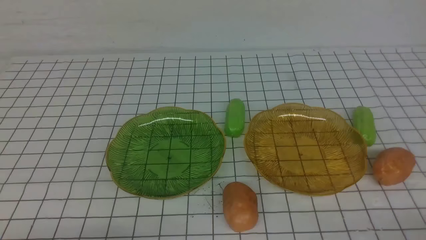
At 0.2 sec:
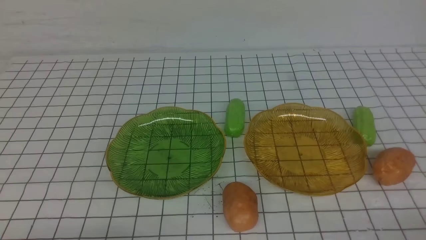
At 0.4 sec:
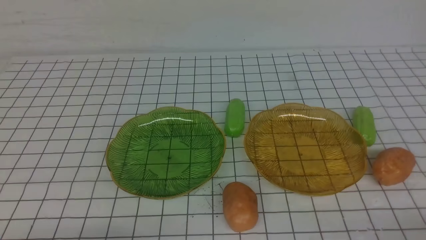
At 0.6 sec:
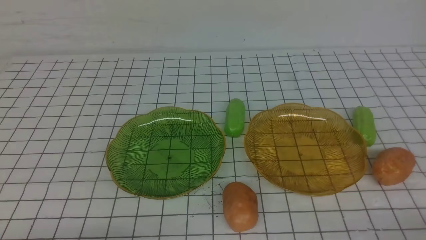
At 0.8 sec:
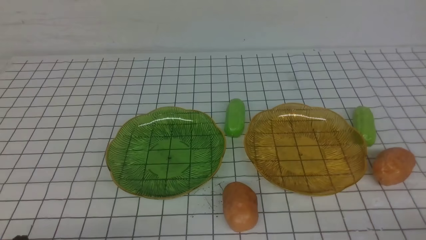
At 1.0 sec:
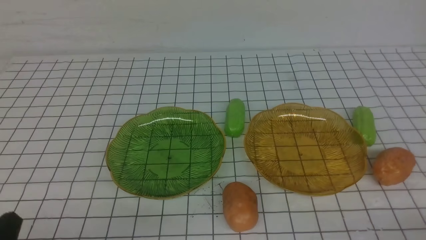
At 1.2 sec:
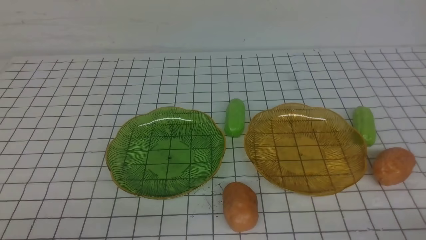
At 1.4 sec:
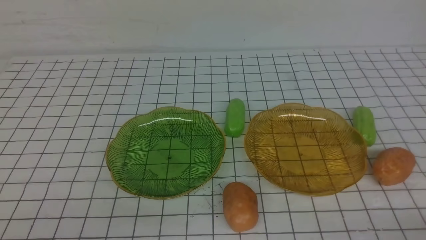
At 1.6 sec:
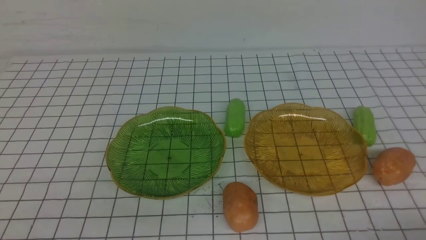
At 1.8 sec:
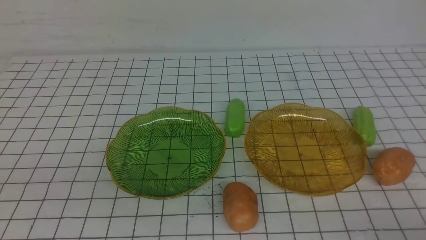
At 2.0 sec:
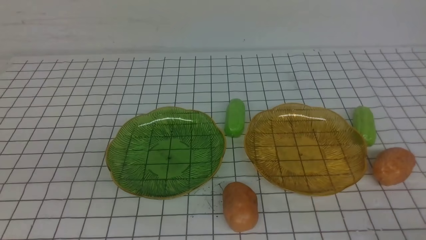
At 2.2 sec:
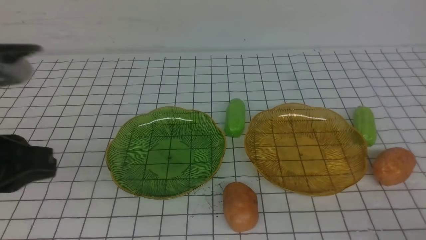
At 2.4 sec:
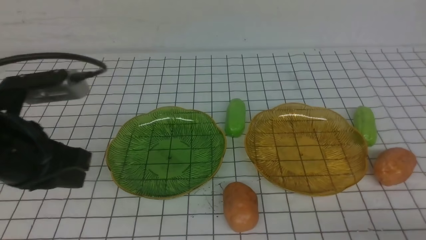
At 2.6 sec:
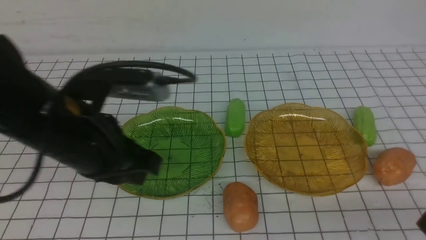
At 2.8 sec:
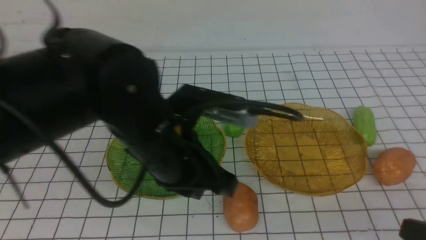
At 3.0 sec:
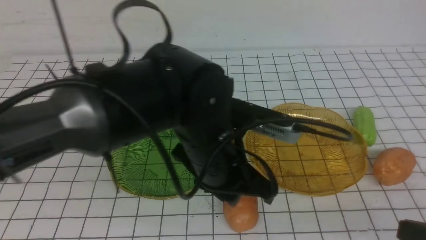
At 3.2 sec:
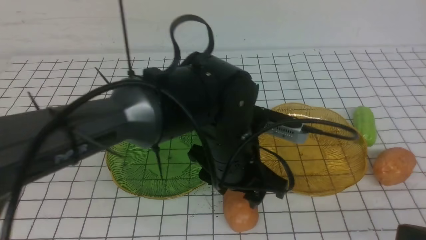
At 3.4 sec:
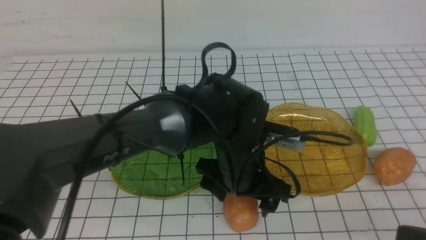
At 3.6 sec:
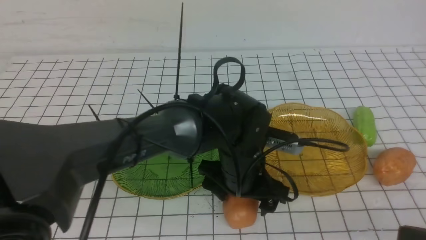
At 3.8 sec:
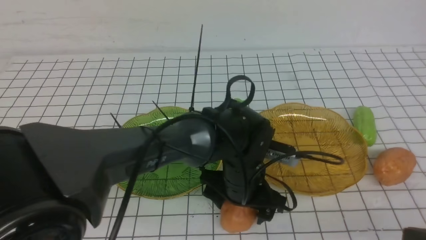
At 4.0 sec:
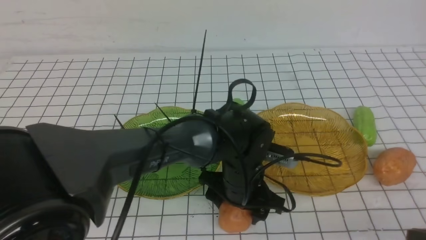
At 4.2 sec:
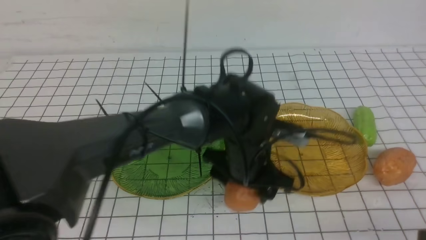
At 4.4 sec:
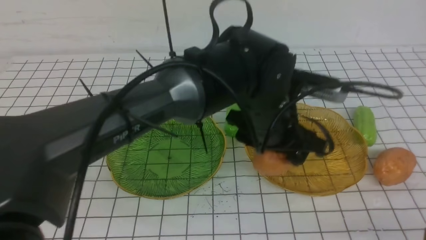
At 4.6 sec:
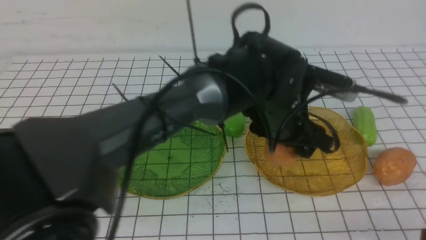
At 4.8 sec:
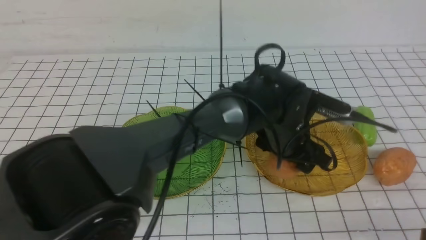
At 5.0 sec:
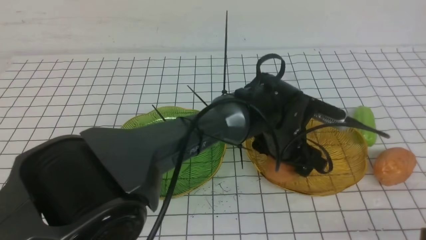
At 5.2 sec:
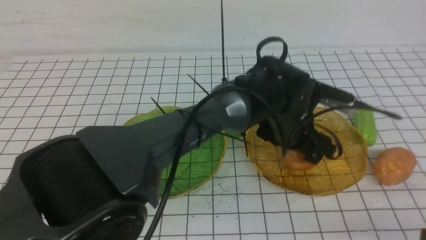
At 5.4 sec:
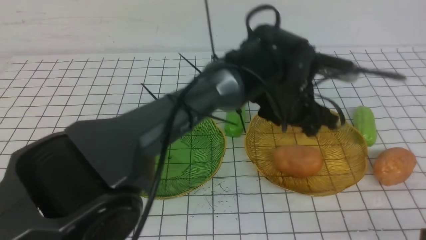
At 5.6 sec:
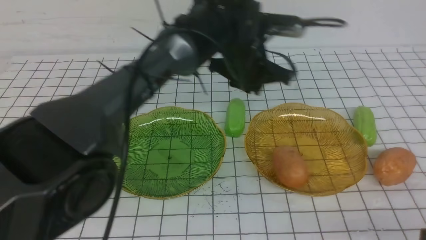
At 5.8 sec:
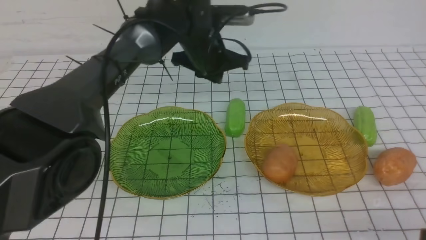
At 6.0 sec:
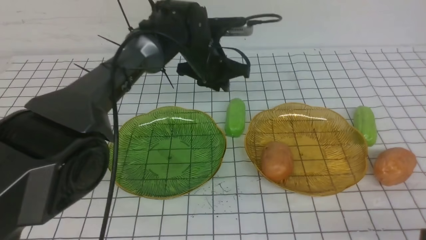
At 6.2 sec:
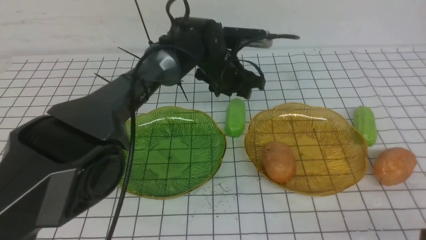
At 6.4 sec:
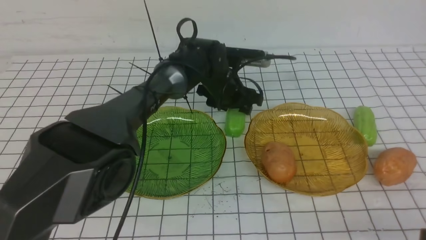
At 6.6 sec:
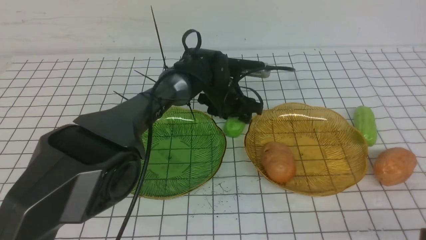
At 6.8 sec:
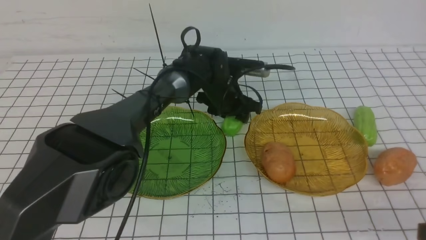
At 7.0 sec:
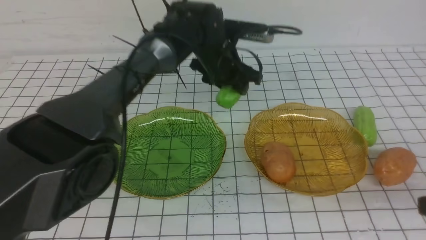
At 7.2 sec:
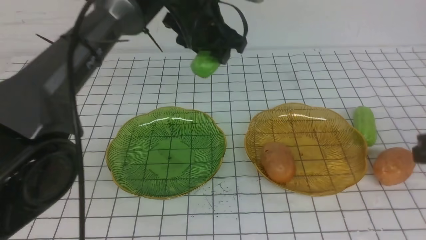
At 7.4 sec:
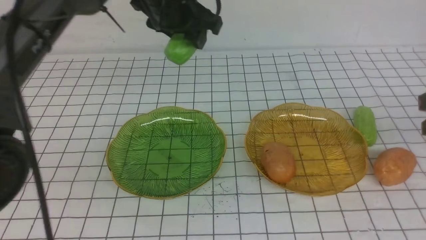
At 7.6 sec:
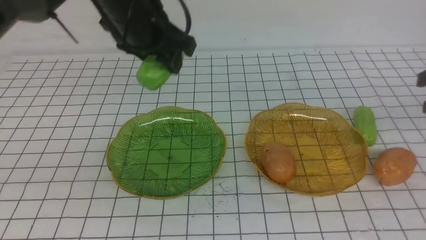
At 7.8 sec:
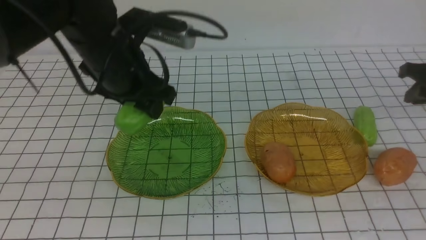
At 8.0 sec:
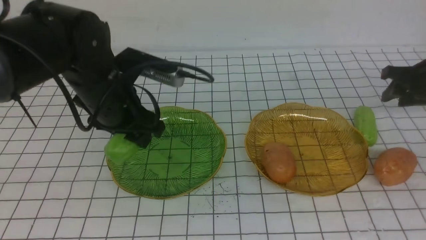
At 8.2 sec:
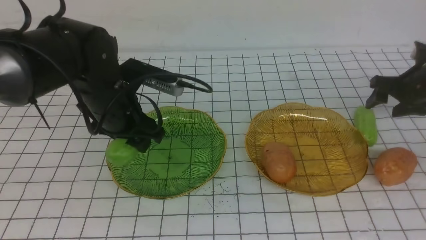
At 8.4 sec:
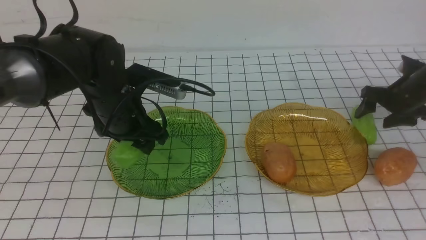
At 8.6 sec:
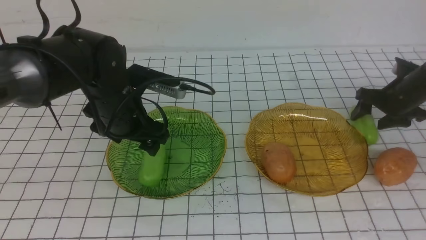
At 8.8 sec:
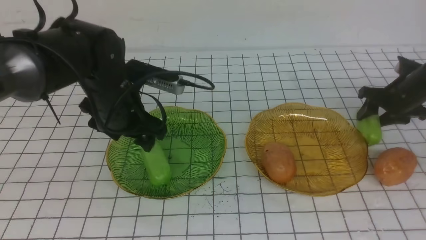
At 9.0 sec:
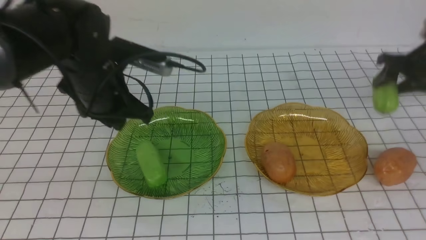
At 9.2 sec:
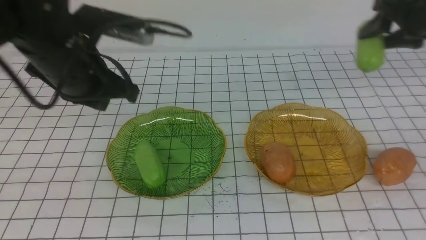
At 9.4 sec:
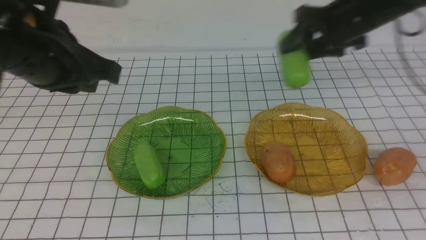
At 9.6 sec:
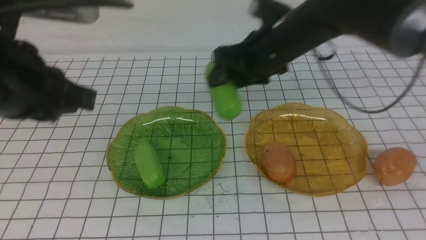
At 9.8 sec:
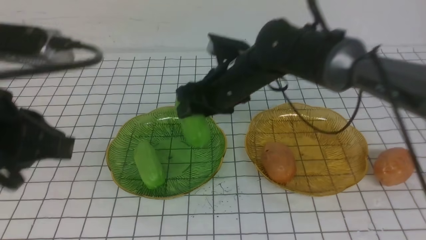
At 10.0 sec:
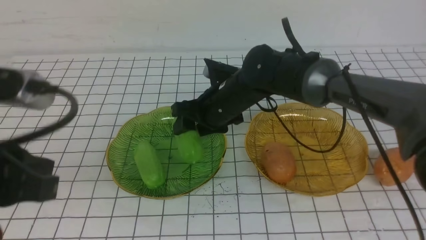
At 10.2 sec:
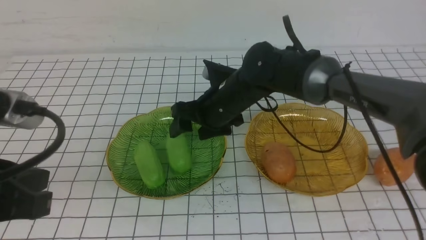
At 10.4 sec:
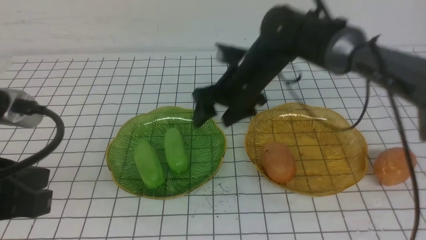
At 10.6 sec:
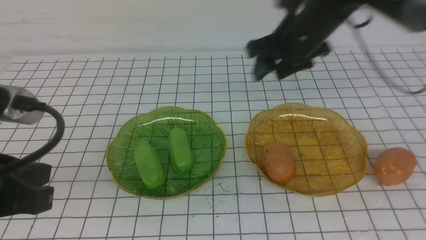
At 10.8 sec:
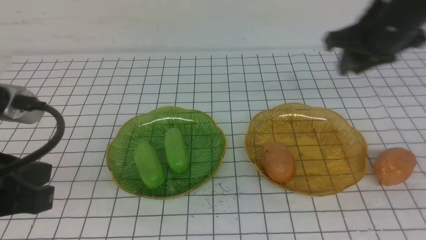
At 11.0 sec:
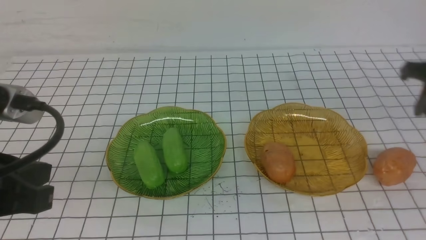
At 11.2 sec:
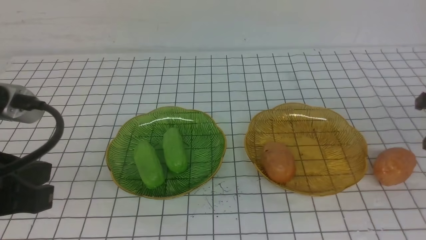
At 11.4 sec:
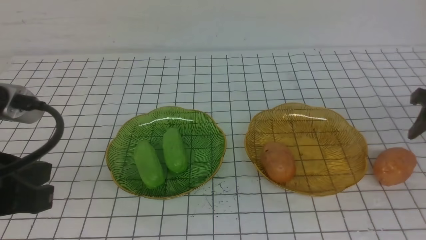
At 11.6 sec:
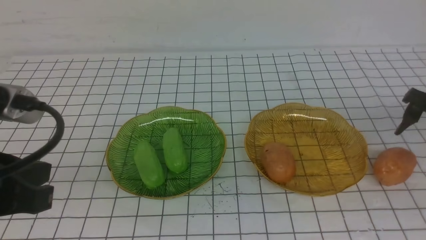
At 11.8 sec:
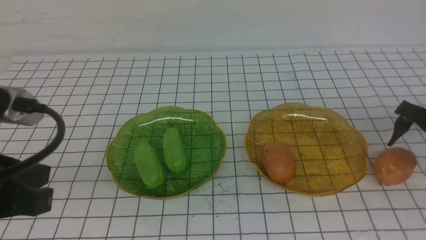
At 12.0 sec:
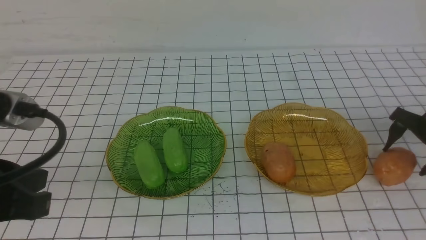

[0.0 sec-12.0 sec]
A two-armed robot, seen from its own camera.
Step, 0.0 sec to 5.2 sec: use the left arm to grab a radish and put it into the right plate.
Step, 5.4 sec to 8.6 sec: use the left arm to grab a chayote and put it into the left plate.
Step, 8.8 sec to 10.2 sec: Grab the chayote with your right arm and put it on the left plate.
1.6 sec to 3.0 sec: The right gripper shifts roughly 10 cm upward; the left gripper is displaced to the right and forward by approximately 30 cm.
3.0 sec to 4.4 sec: The left gripper shifts about 10 cm to the right and forward, travels downward and back again, about 10 cm each way, and opens.
4.4 sec to 6.0 sec: The left gripper heads forward and to the left, covering approximately 20 cm, and closes up.
6.0 sec to 7.6 sec: The right gripper is displaced forward by approximately 25 cm. Meanwhile the left gripper travels upward, backward and to the left by roughly 20 cm.
7.6 sec to 9.0 sec: The left gripper moves to the left, roughly 5 cm, and closes up, while the right gripper travels forward by some 15 cm, and opens its fingers.
9.0 sec to 10.4 sec: The left gripper moves backward, roughly 20 cm. The right gripper is displaced to the left by some 25 cm.
10.4 sec to 12.0 sec: The right gripper moves to the right, approximately 30 cm, and closes, then opens again.

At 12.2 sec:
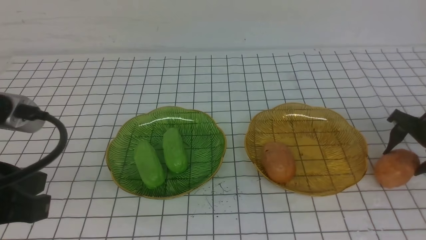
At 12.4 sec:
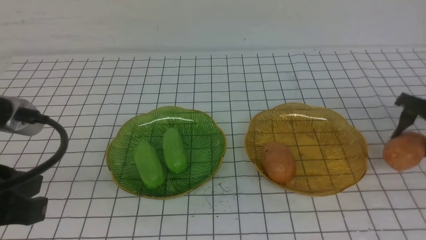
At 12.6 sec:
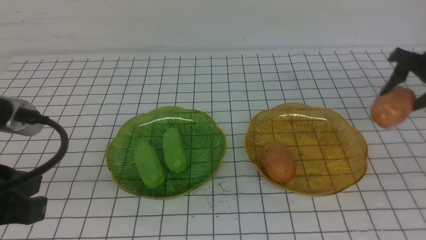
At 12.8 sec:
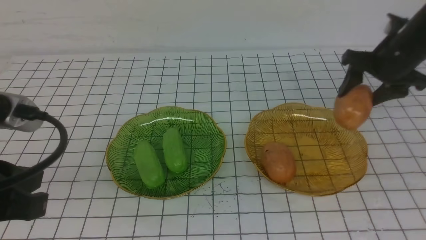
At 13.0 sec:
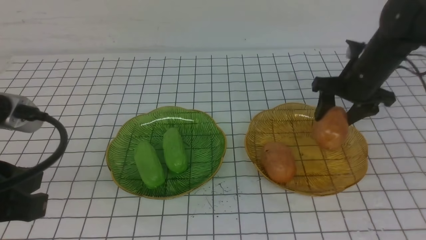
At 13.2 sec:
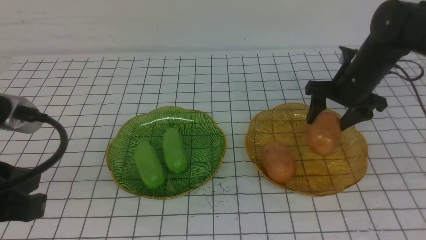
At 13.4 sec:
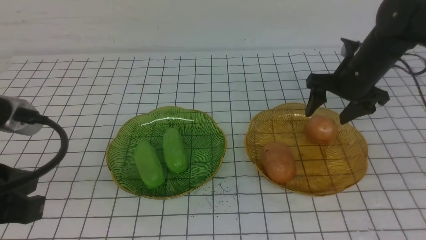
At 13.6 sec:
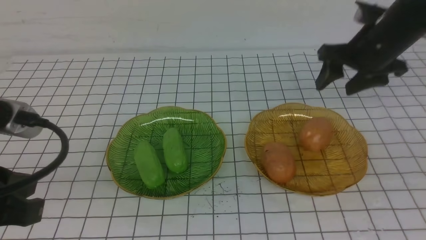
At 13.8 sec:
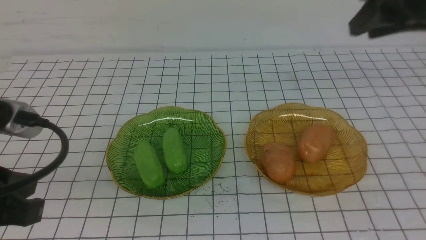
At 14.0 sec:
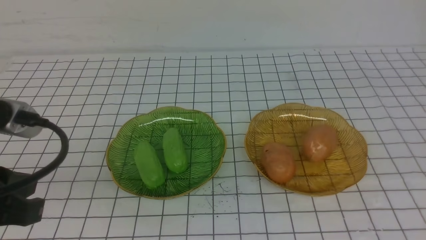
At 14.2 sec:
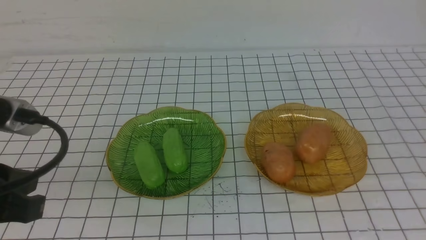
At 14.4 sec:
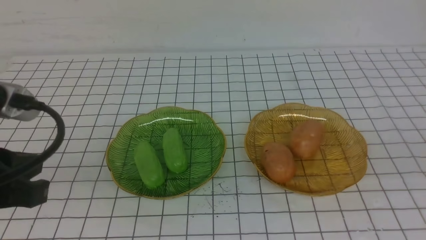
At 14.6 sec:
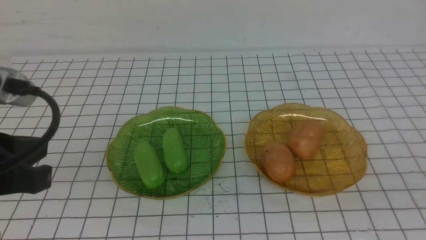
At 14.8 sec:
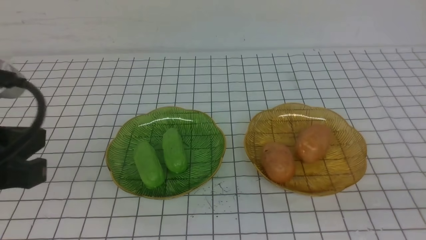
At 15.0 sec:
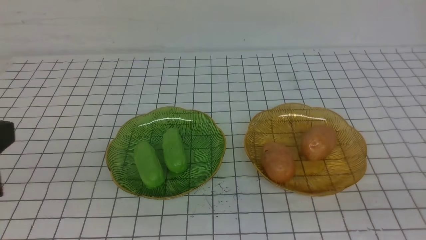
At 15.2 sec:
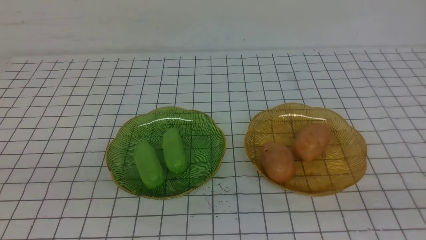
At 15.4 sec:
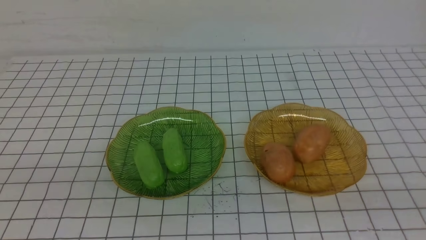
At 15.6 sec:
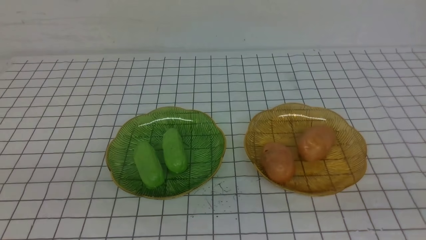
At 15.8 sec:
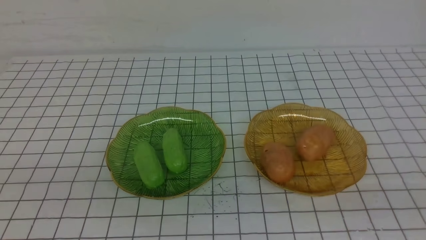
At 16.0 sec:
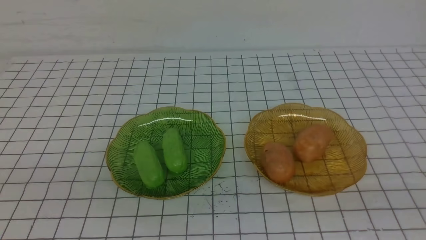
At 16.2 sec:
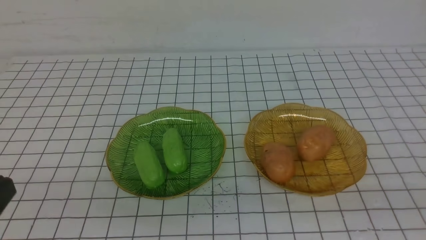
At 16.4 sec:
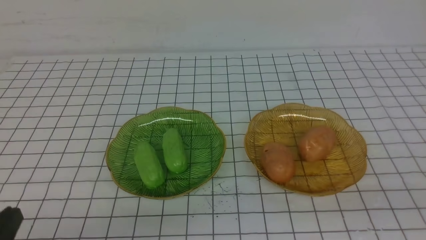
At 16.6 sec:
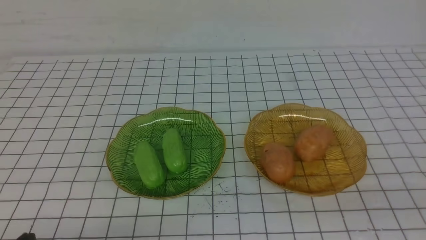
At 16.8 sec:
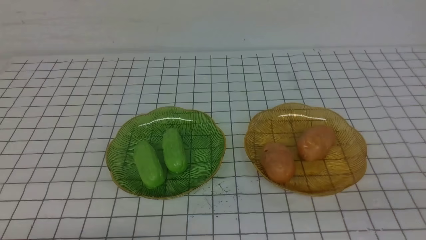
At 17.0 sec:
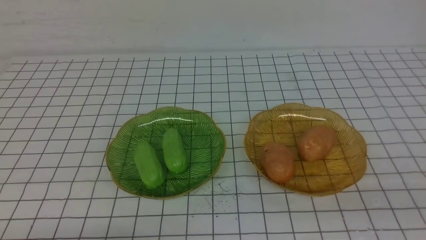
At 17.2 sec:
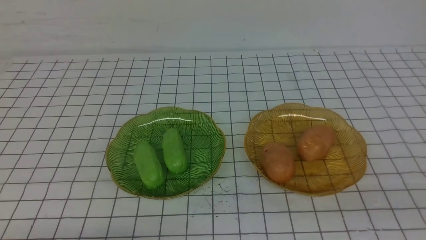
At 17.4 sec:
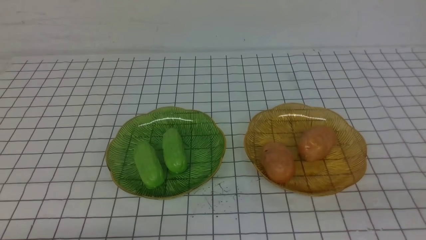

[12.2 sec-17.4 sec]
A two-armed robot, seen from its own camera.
12.2 sec to 14.0 sec: The right gripper shifts some 35 cm upward and backward, and closes its fingers.
14.0 sec to 15.6 sec: The right gripper travels downward and backward by roughly 25 cm. Meanwhile the left gripper travels backward by roughly 5 cm.
